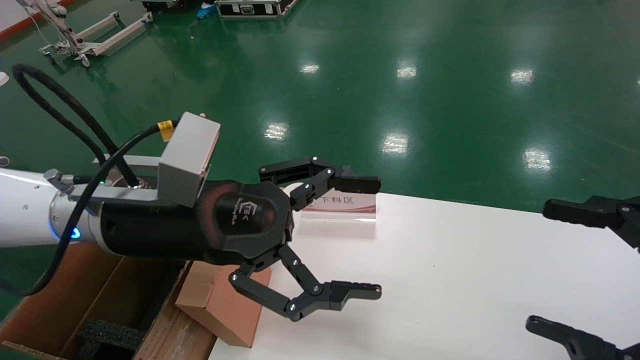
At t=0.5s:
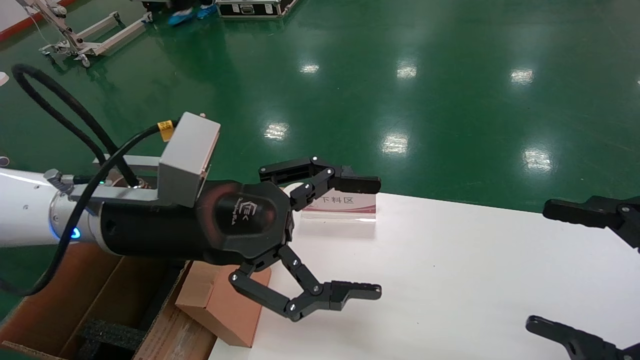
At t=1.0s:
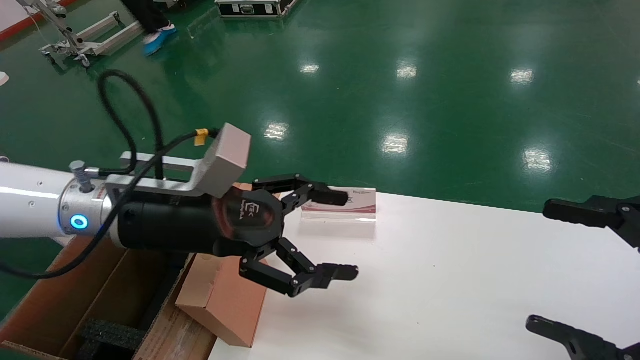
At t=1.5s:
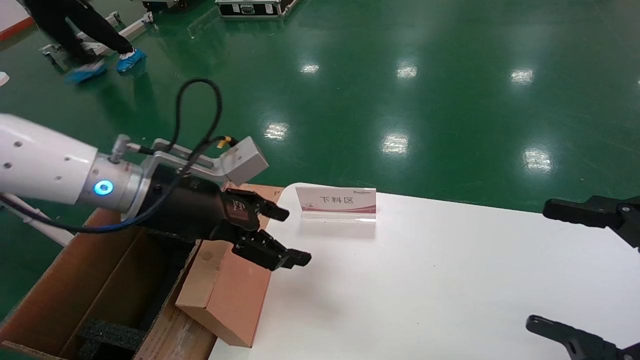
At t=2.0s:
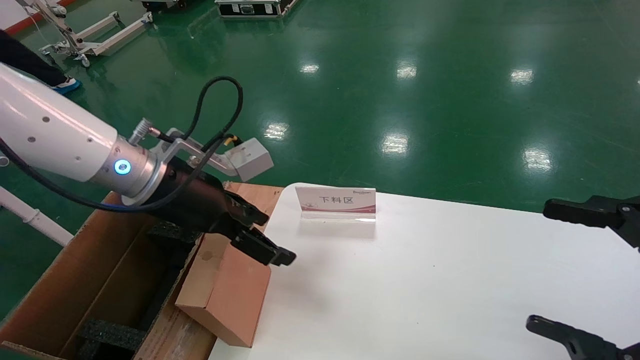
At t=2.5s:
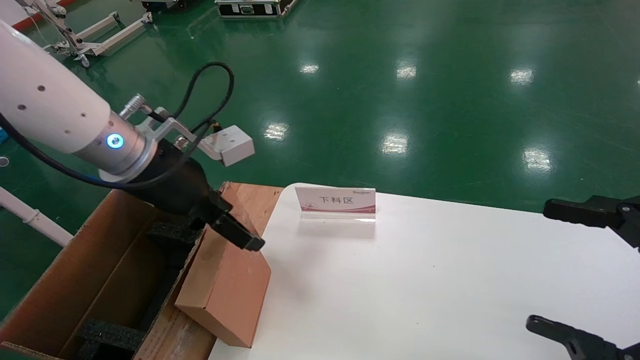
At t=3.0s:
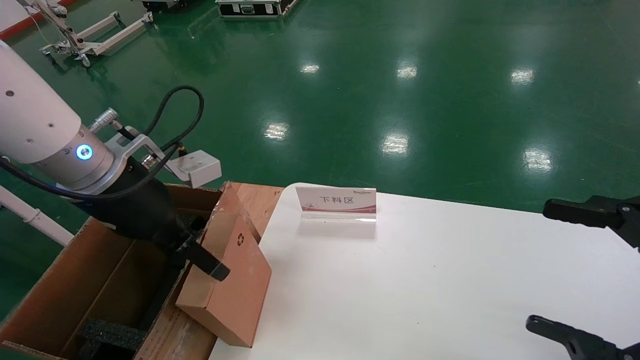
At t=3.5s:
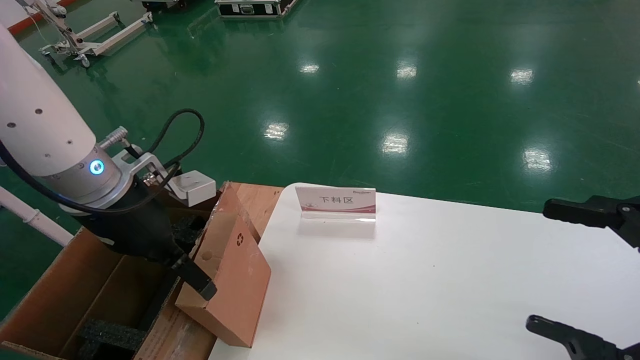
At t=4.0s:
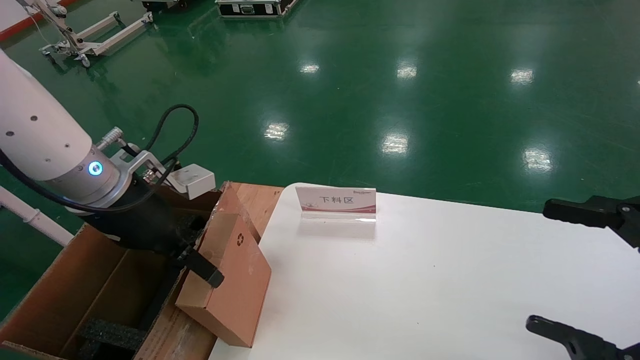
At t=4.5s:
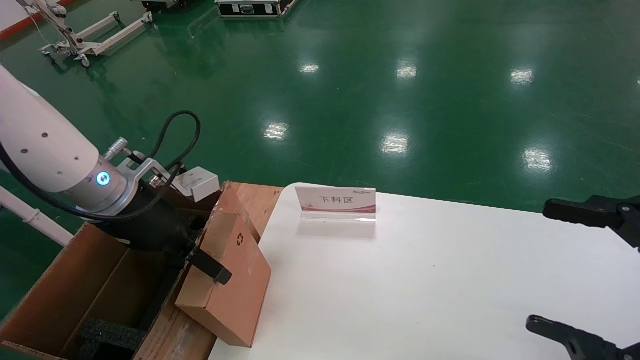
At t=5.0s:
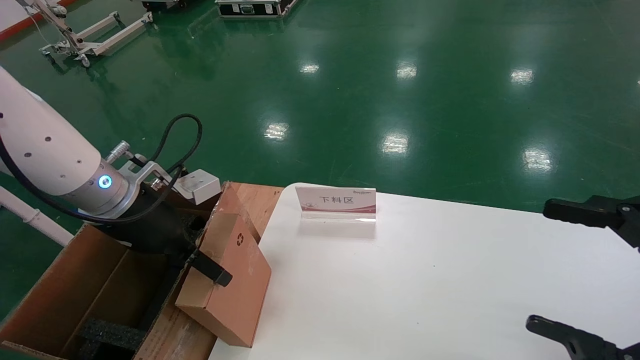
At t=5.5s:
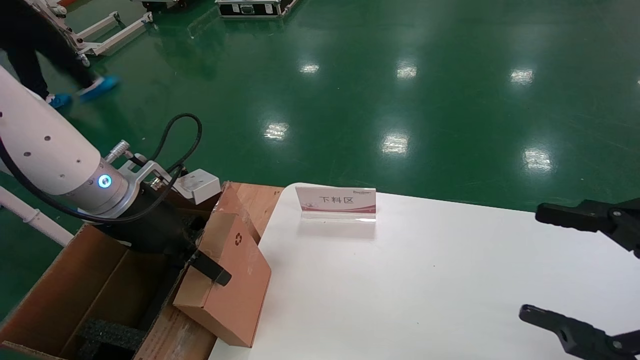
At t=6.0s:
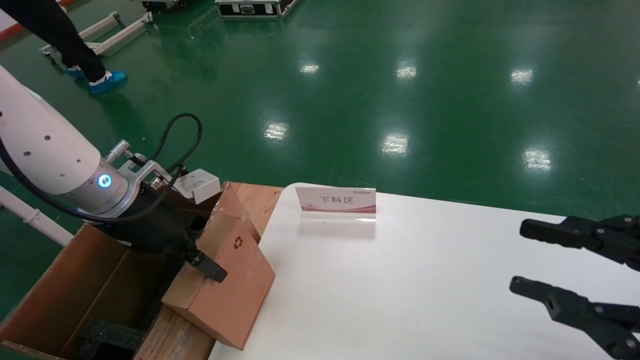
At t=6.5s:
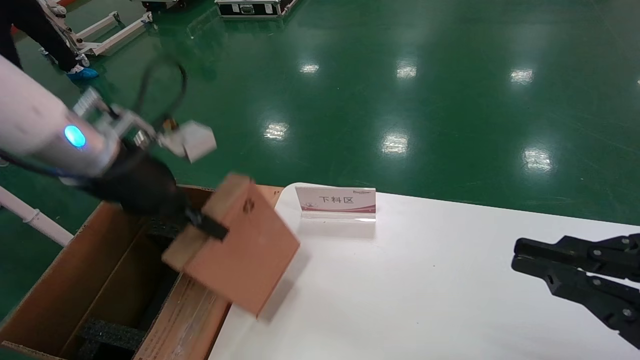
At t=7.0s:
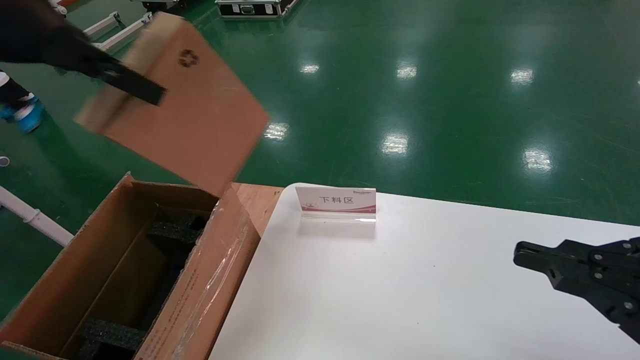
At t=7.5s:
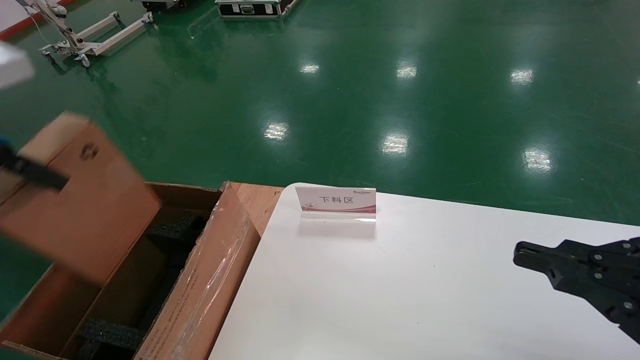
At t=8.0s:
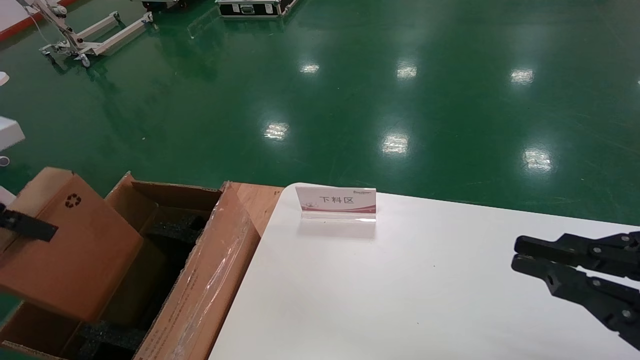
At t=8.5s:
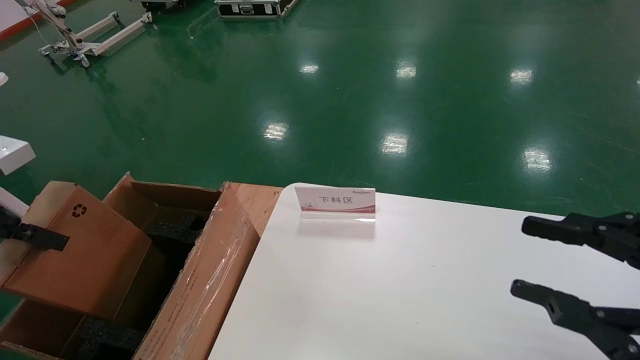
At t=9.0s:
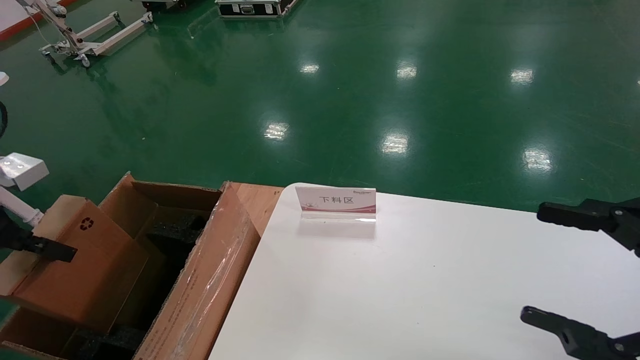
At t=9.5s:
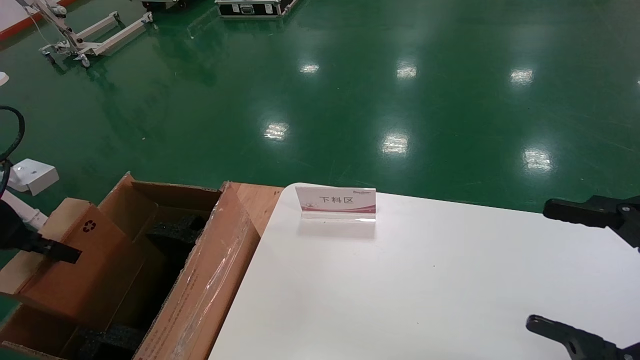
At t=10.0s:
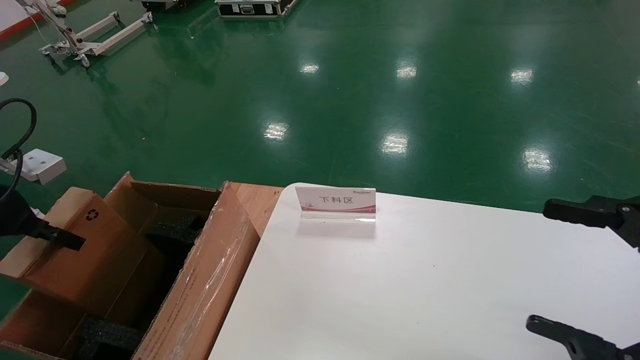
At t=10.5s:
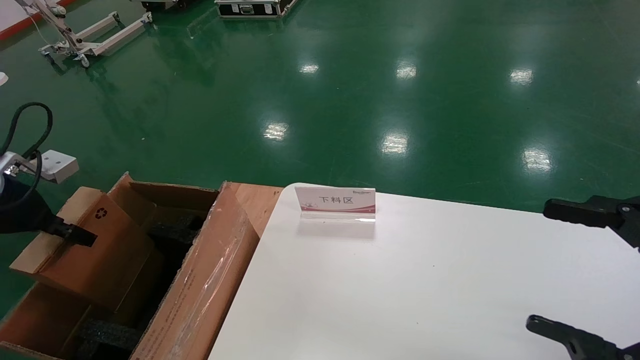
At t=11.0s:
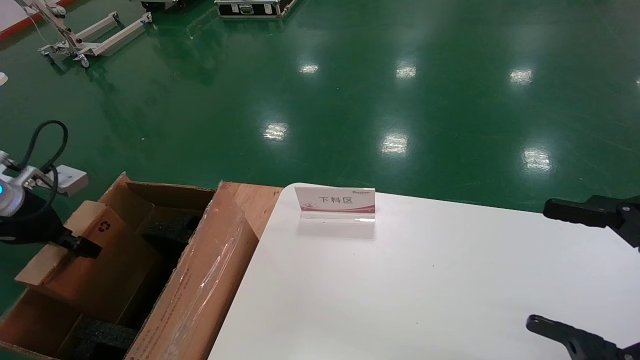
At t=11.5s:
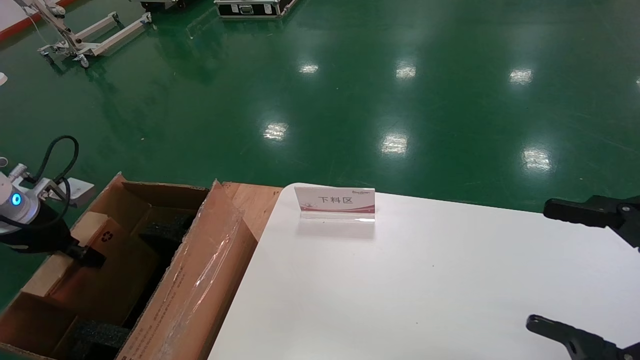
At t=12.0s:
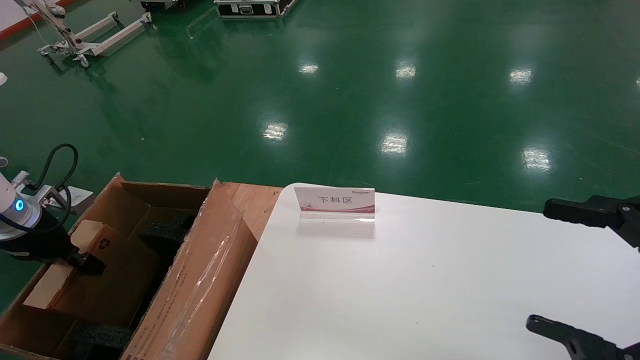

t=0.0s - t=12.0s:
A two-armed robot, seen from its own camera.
Task of the whole recording: pick up the small cardboard box and load it into the large cardboard box.
Step, t=1.0s - t=6.0s: Pick up the mouse and power cord box.
t=0.0s - t=2.0s: The left gripper travels forward by about 5 cm.
t=4.0s - t=6.0s: The right gripper closes its fingers. Meanwhile the left gripper closes up.
t=6.0s - t=8.0s: The left gripper shifts some 20 cm to the left, backward and upward, and closes its fingers. Meanwhile the right gripper closes.
t=8.0s - t=10.0s: The right gripper opens. The left gripper moves downward, forward and to the left, some 10 cm.
t=10.0s - t=12.0s: The left gripper is displaced downward and forward by approximately 10 cm.

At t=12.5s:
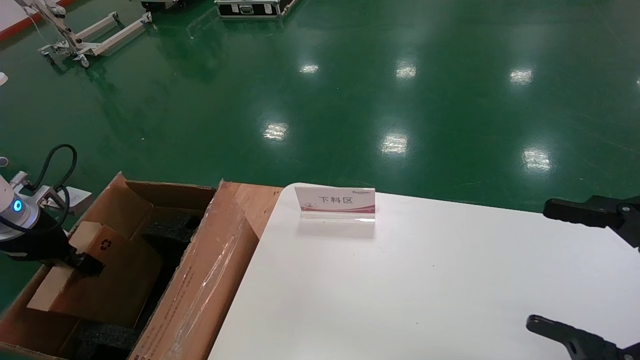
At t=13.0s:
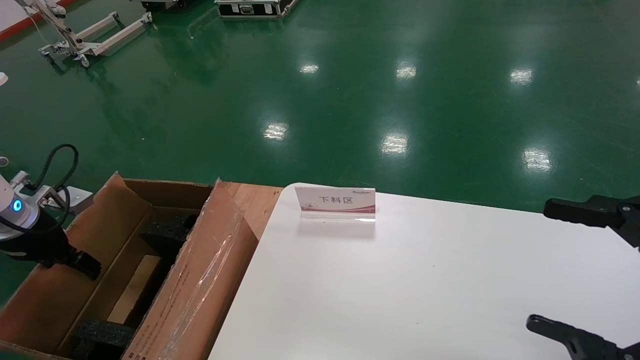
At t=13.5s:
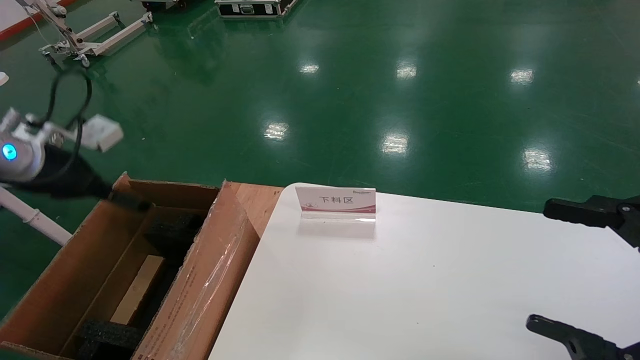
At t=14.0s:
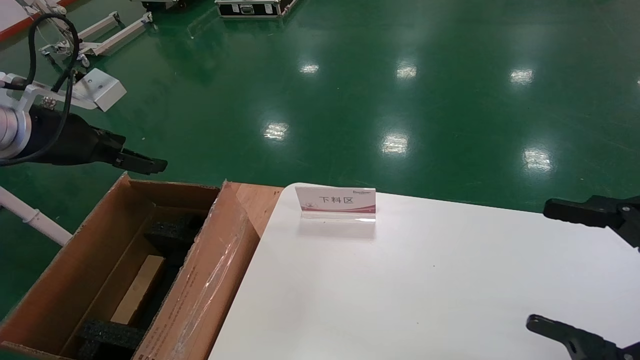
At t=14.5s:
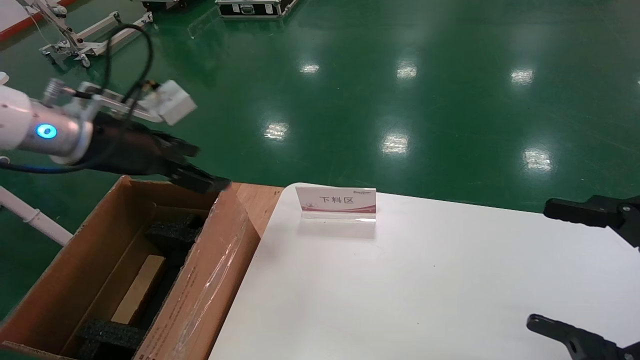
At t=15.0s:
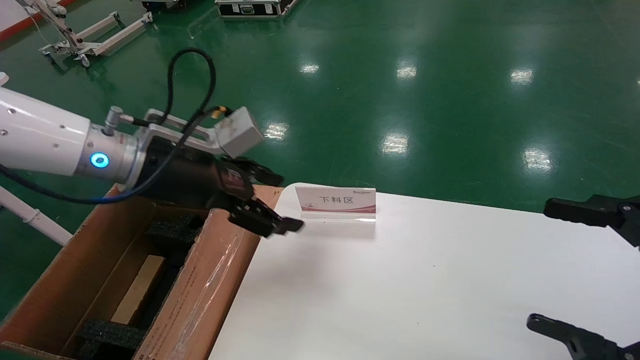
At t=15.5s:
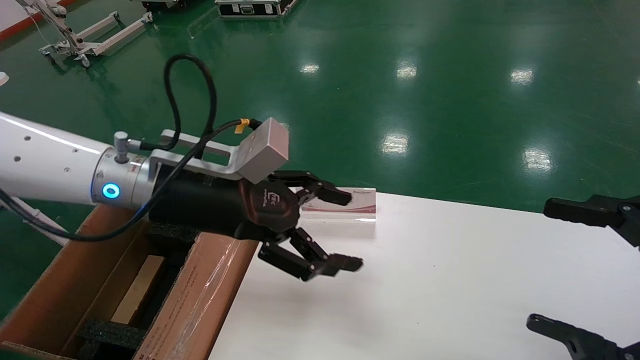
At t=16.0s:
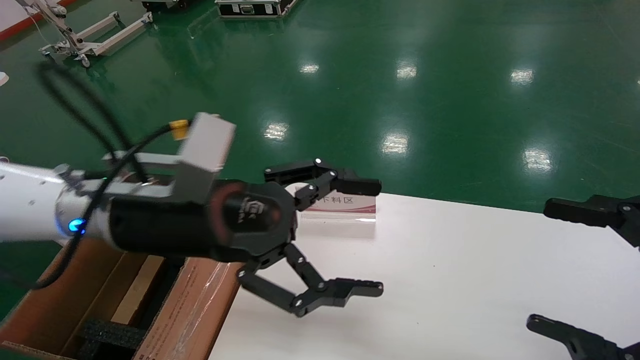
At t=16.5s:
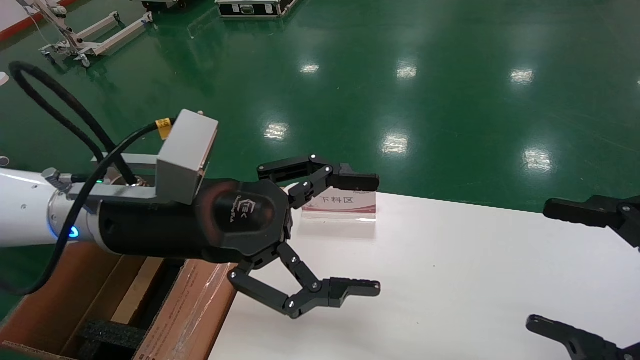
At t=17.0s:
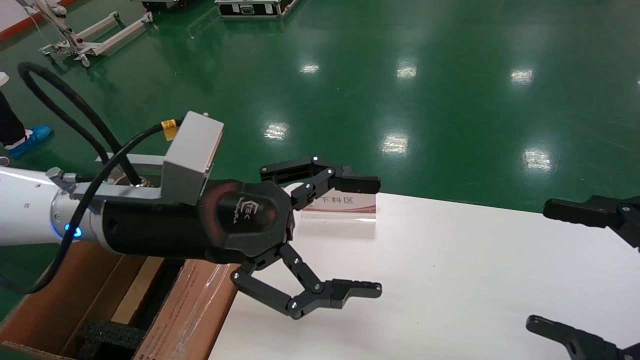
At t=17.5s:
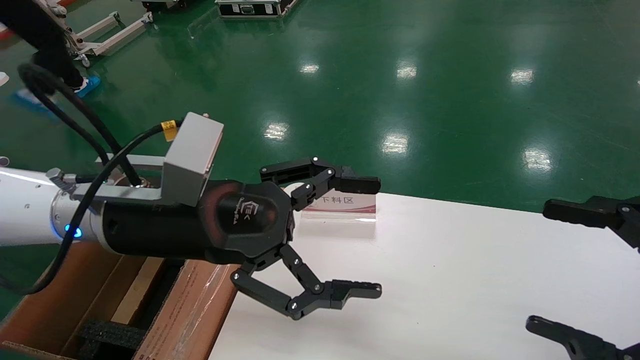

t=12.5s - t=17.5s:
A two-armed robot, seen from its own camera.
Task of the whole recording: pick up the small cardboard box and load it into the large cardboard box.
t=12.5s - t=15.0s: The left gripper shifts some 25 cm to the right and upward, and opens.
t=15.0s - t=17.5s: The left gripper heads backward and to the right, covering approximately 10 cm.

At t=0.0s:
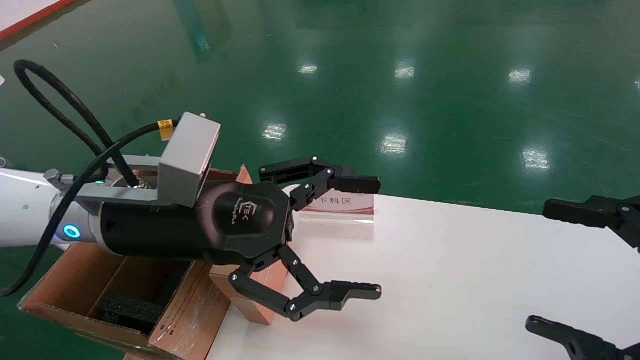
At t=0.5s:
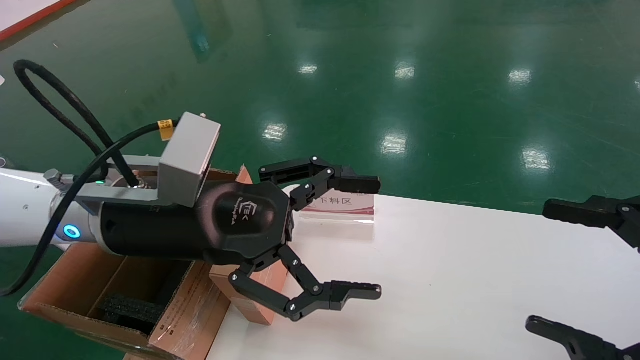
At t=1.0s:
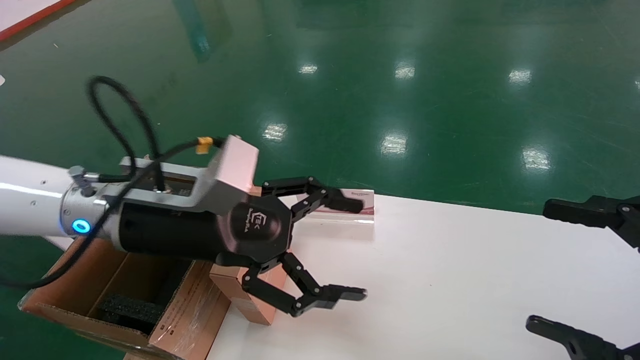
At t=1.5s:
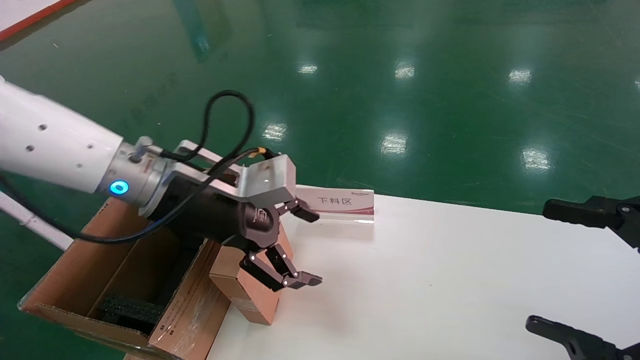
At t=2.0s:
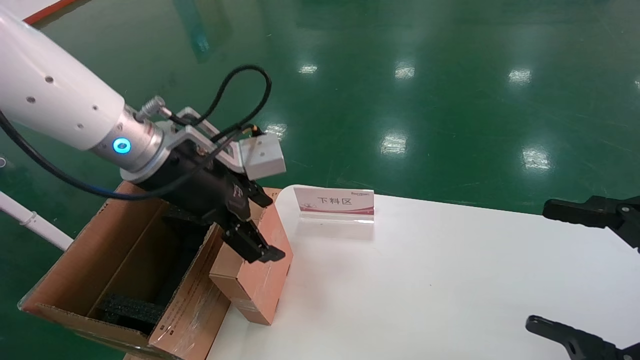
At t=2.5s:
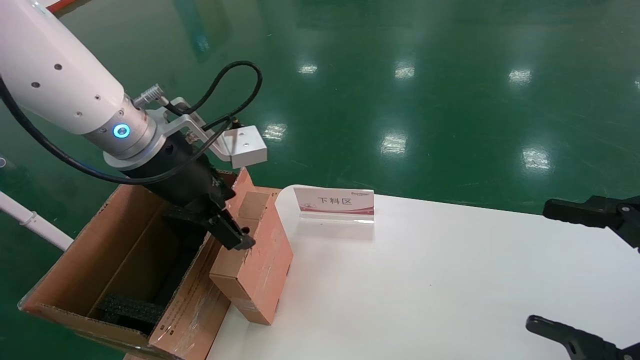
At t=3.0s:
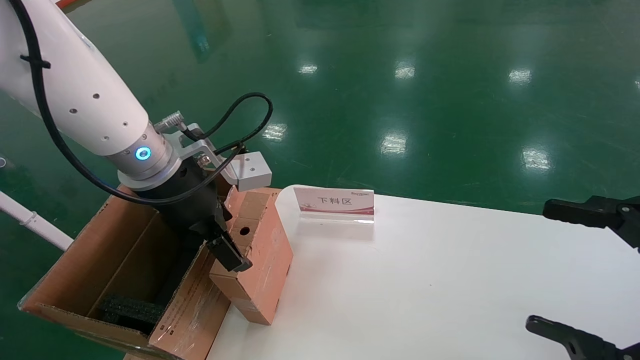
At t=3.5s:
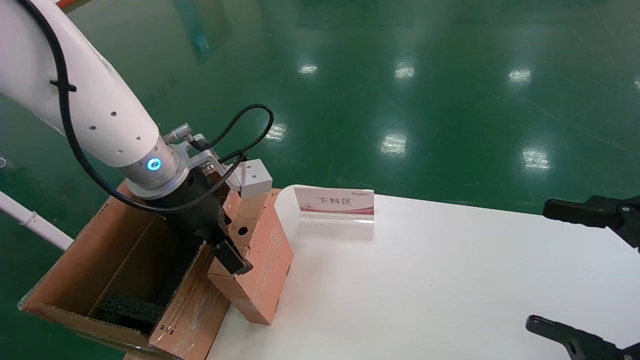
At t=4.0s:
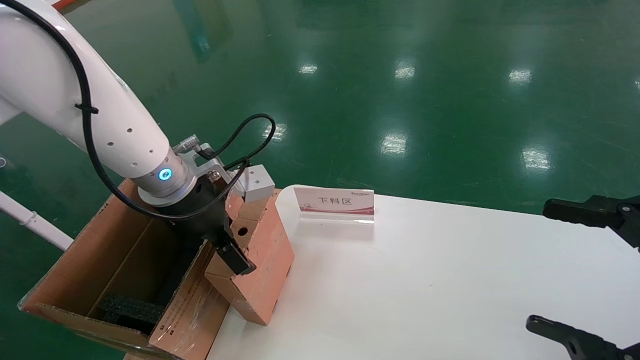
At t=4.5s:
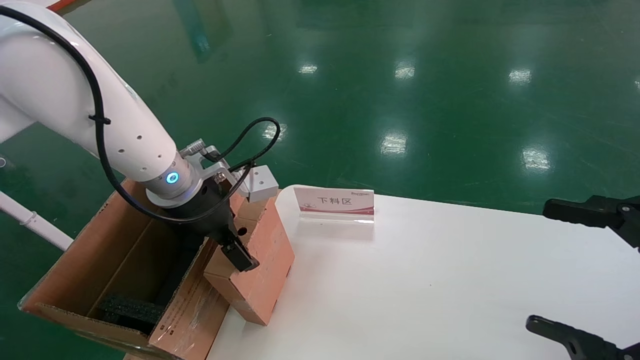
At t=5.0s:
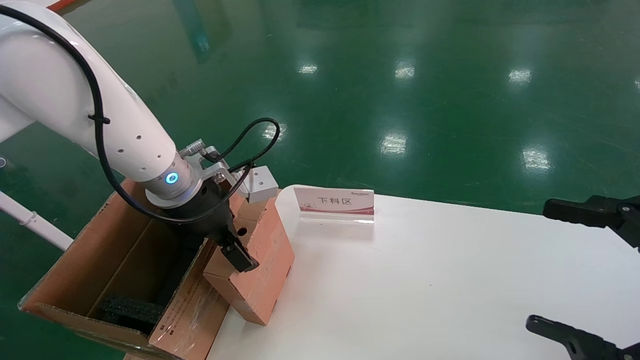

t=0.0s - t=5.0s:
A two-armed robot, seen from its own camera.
Task of the whole recording: pick up the small cardboard box and load it into the large cardboard box.
t=0.0s - t=2.5s: The left gripper travels forward and upward by roughly 10 cm.
t=2.5s - t=5.0s: The left gripper heads downward, covering approximately 5 cm.
